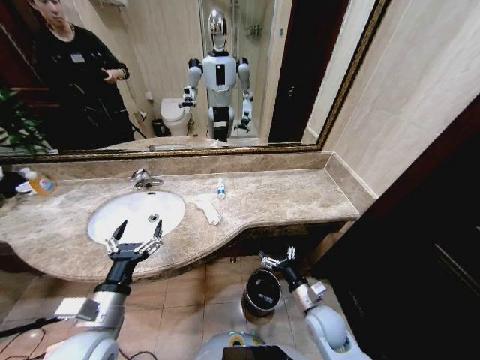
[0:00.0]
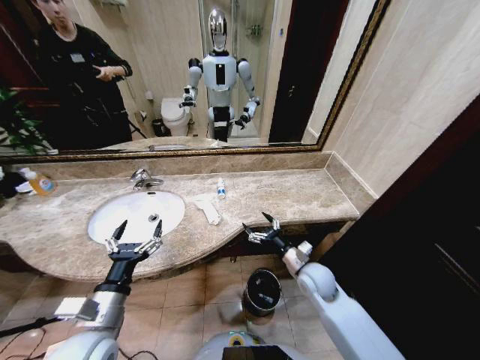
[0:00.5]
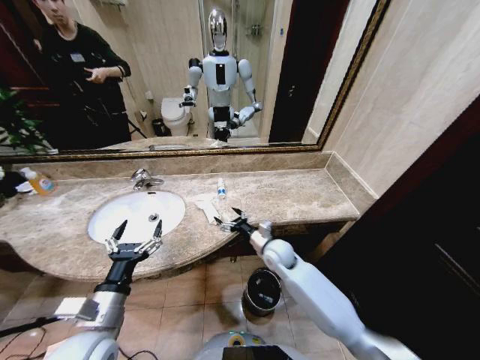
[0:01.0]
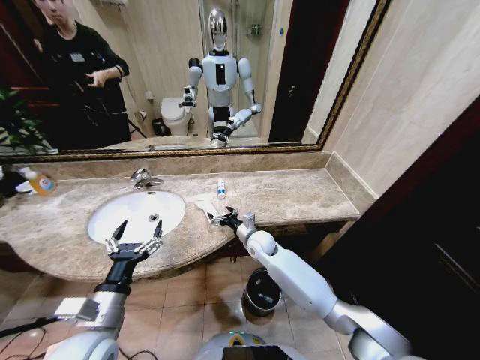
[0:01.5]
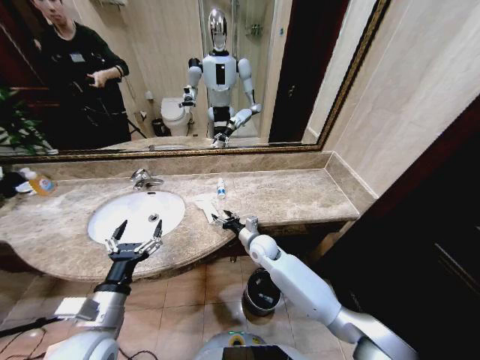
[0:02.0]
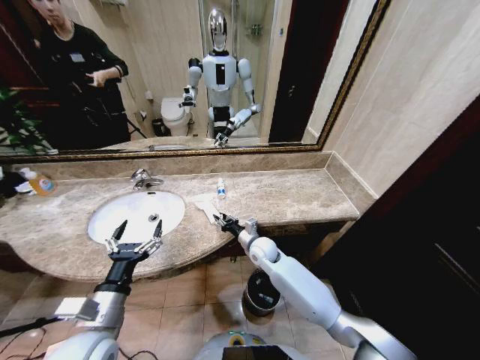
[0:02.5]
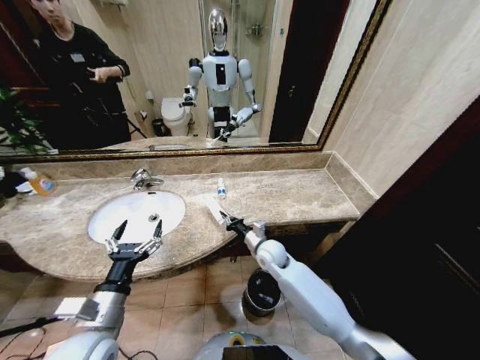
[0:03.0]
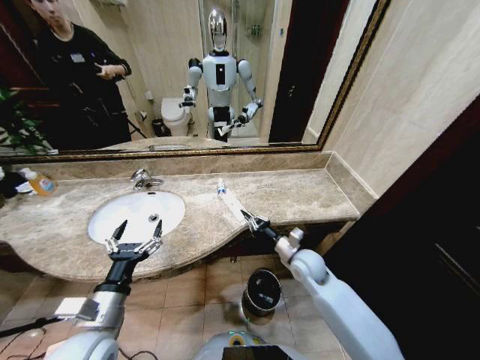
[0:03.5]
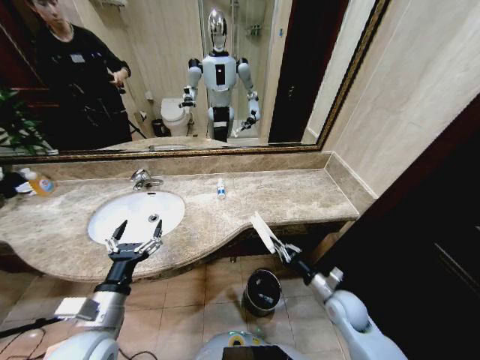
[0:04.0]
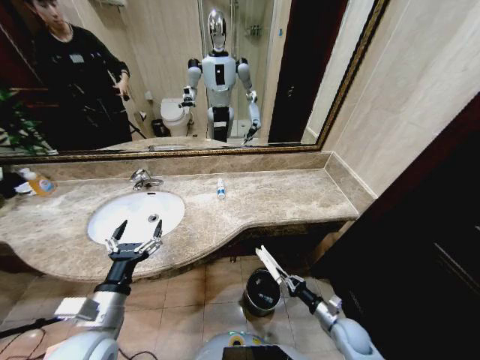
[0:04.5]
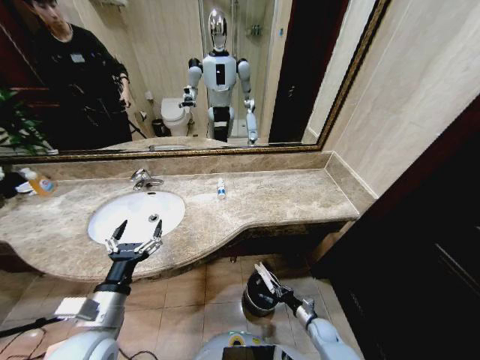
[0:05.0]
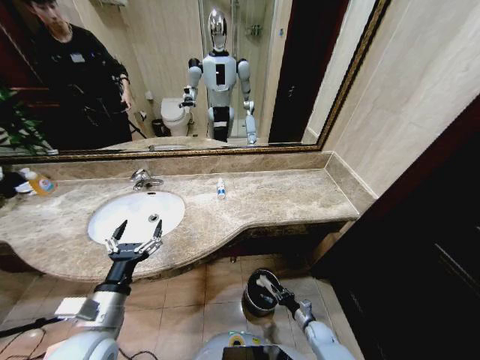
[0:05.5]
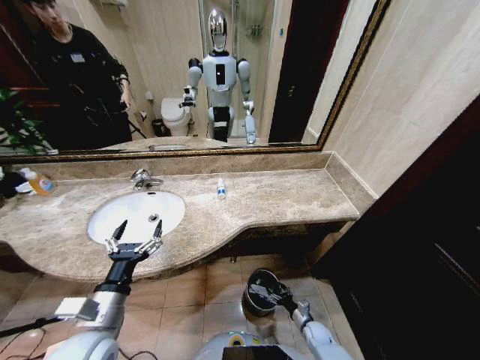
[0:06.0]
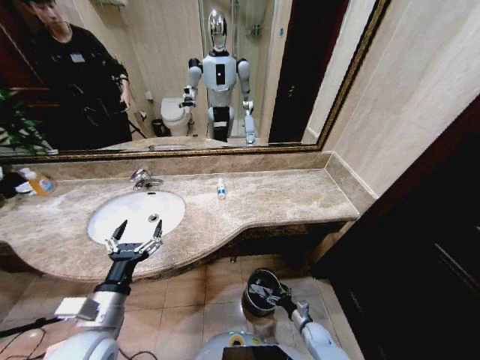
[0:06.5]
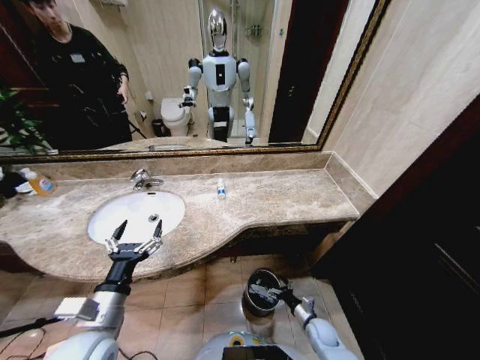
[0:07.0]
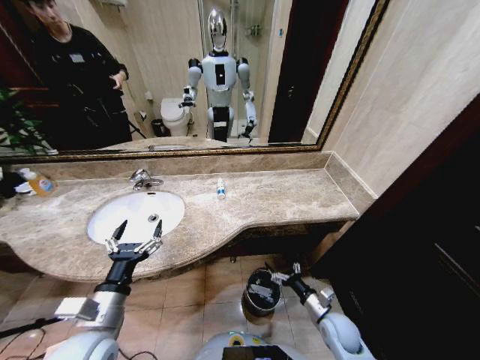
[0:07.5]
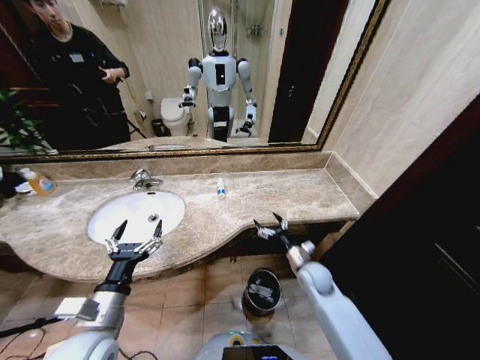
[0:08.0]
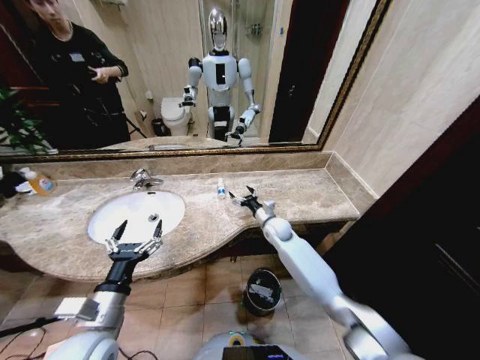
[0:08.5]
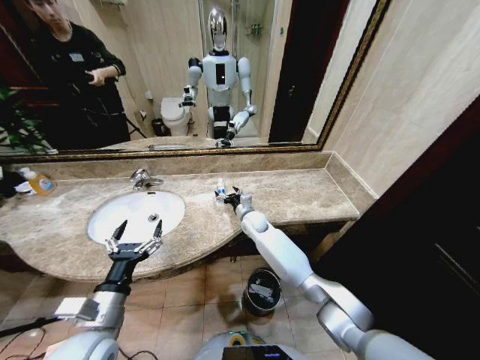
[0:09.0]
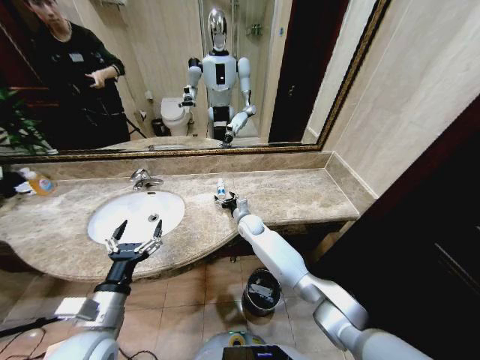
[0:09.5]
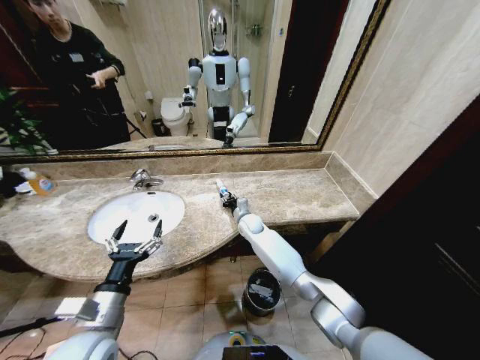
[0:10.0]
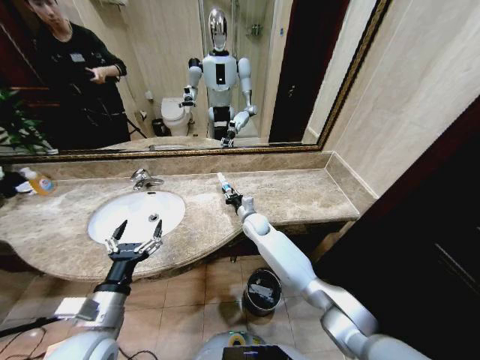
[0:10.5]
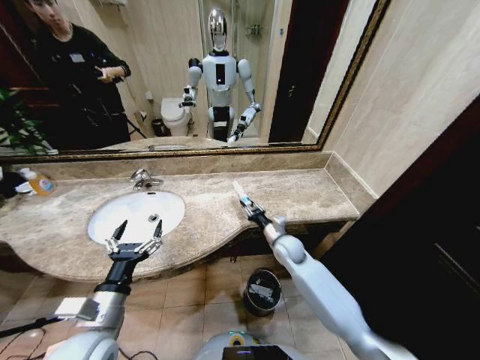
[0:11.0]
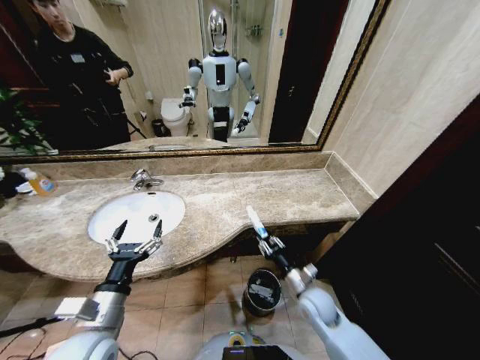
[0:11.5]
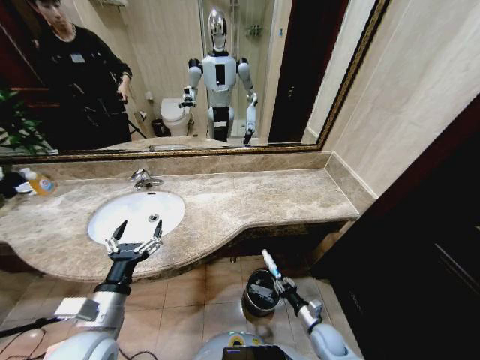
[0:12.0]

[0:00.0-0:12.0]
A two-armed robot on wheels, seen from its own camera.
Task of the whole recording: Pick up the trash from the sink and place it in the trash bin.
0:00.0 to 0:02.0: The right gripper is displaced forward and to the left by about 25 cm.
0:02.0 to 0:04.0: The right gripper travels to the right and backward by approximately 25 cm, and closes up.
0:04.0 to 0:06.0: The right gripper goes about 25 cm downward, and opens.
0:06.0 to 0:08.0: The right gripper moves upward and forward, roughly 30 cm.
0:08.0 to 0:10.0: The right gripper heads forward and to the left, covering about 25 cm, and closes its fingers.
0:10.0 to 0:12.0: The right gripper heads backward, to the right and downward, covering about 40 cm.

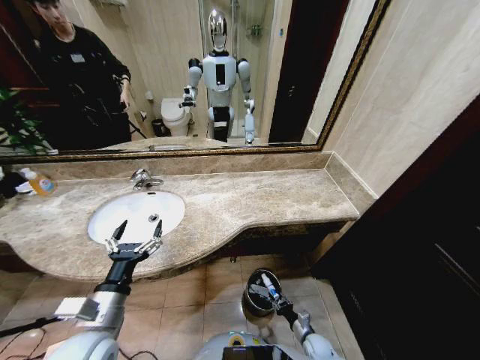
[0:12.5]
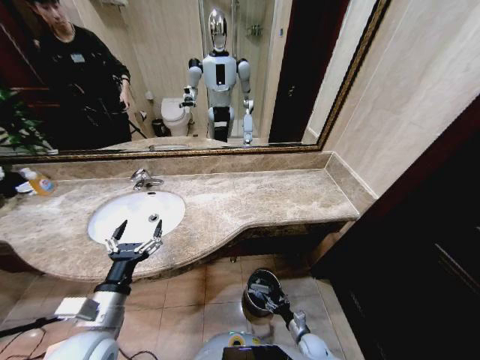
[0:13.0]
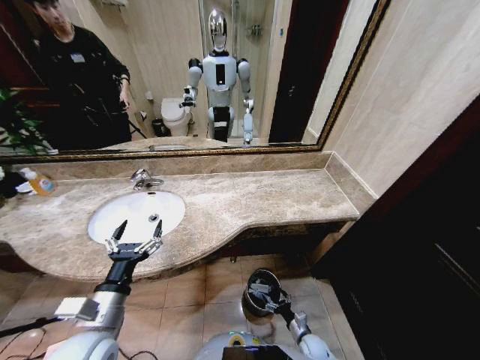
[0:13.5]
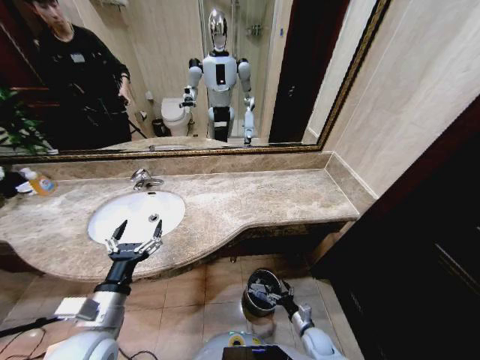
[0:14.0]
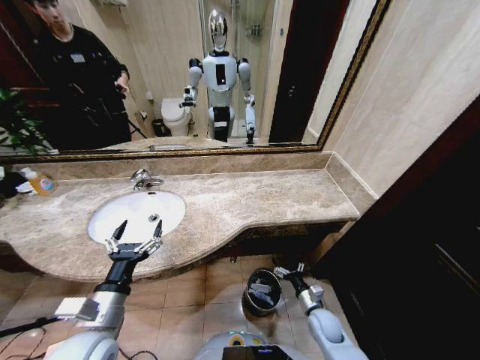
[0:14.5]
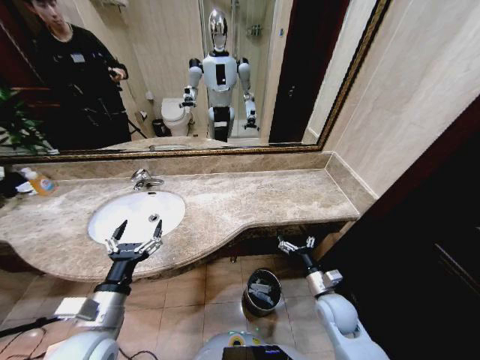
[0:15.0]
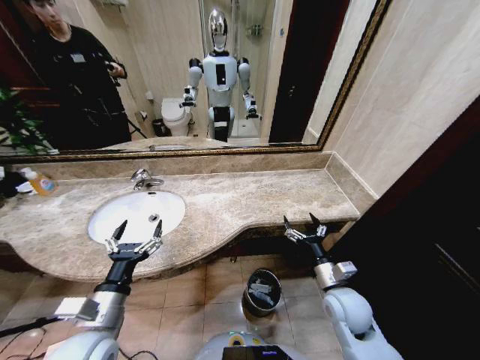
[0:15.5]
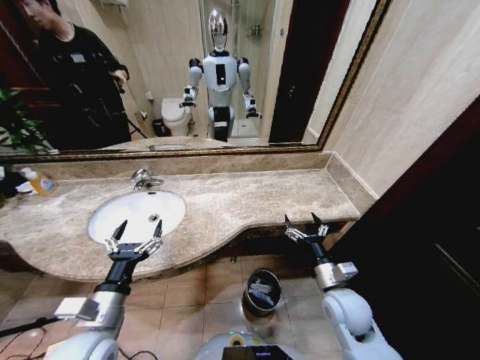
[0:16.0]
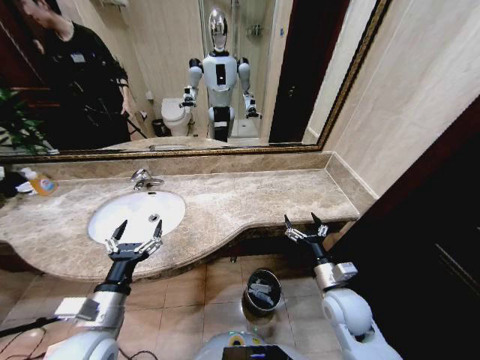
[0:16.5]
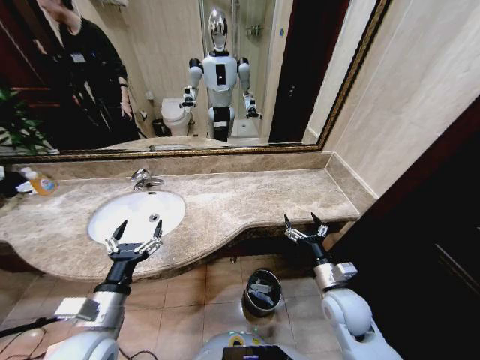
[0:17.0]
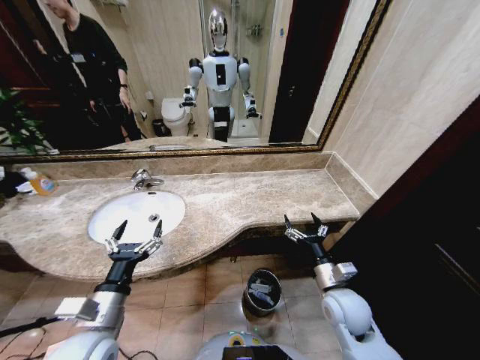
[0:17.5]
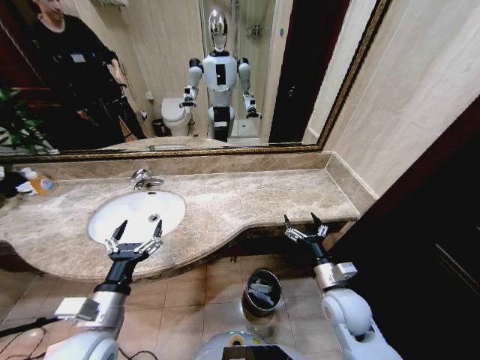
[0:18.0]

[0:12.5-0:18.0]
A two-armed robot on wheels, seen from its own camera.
Task of the whole recording: Pick up the trash from the sink and place it in the trash bin.
0:12.5 to 0:14.5: The right gripper shifts approximately 15 cm upward, and opens up.
0:14.5 to 0:16.0: The right gripper heads upward, covering about 20 cm.
0:16.0 to 0:18.0: Both grippers stay about where they are.
